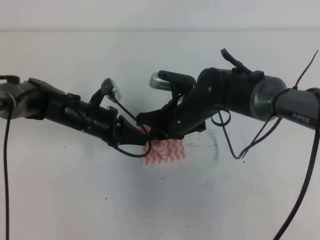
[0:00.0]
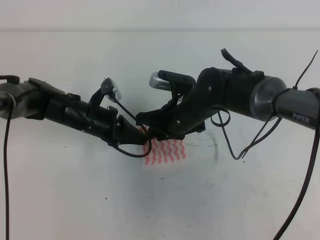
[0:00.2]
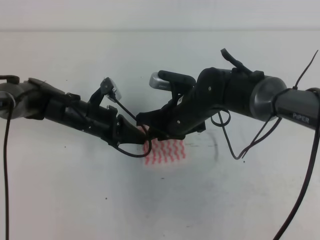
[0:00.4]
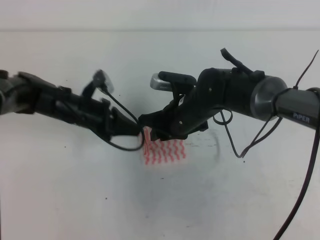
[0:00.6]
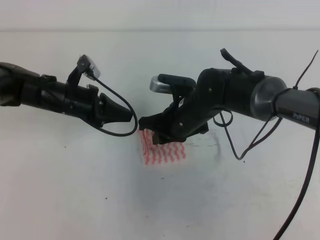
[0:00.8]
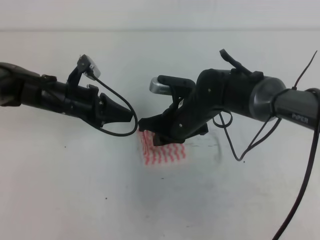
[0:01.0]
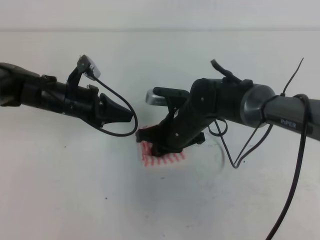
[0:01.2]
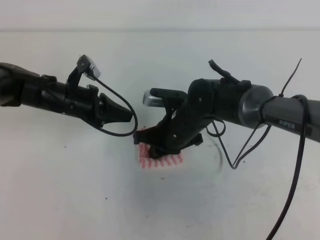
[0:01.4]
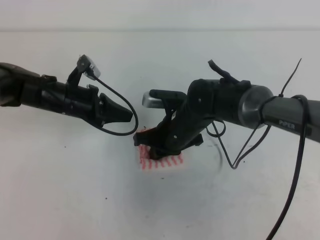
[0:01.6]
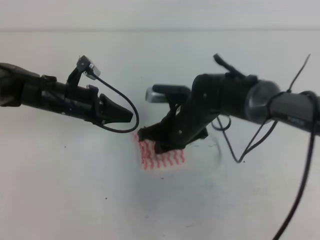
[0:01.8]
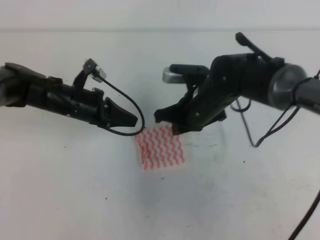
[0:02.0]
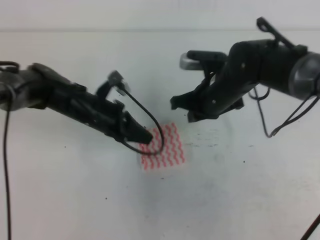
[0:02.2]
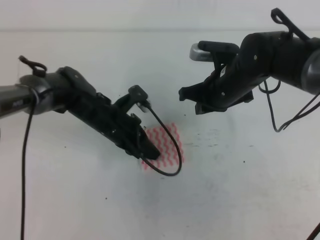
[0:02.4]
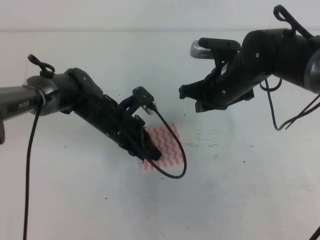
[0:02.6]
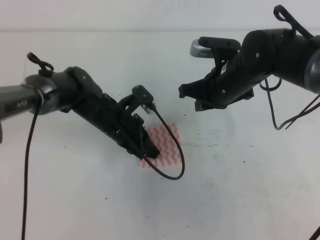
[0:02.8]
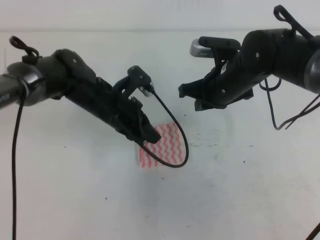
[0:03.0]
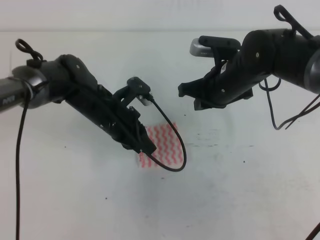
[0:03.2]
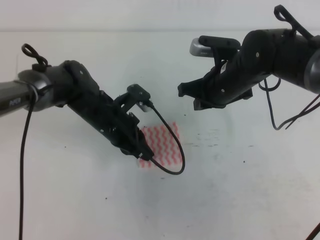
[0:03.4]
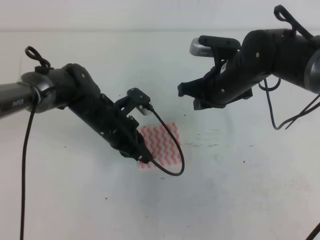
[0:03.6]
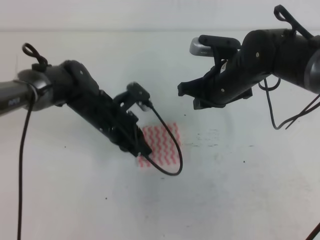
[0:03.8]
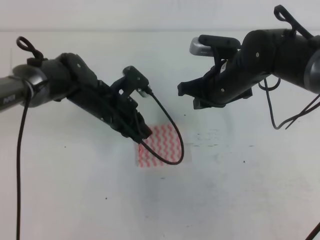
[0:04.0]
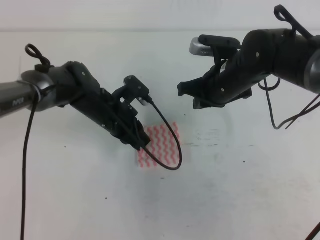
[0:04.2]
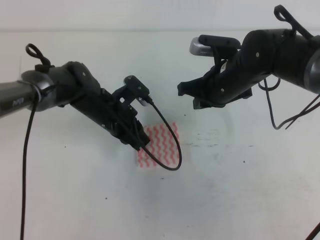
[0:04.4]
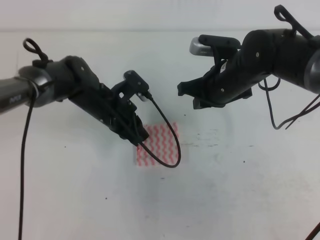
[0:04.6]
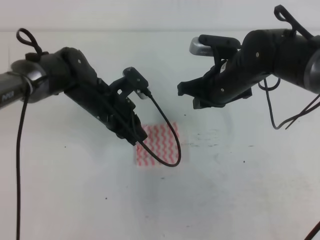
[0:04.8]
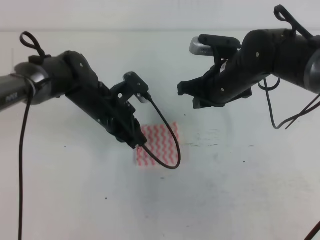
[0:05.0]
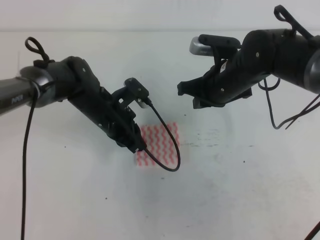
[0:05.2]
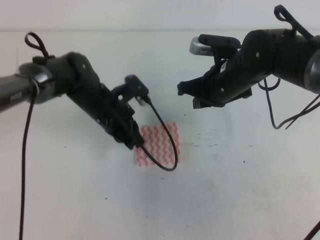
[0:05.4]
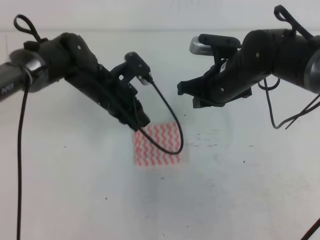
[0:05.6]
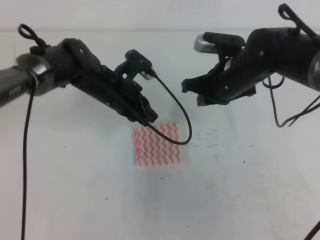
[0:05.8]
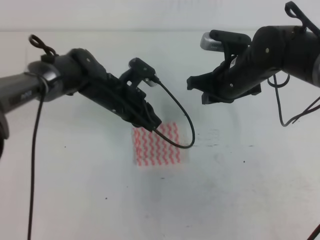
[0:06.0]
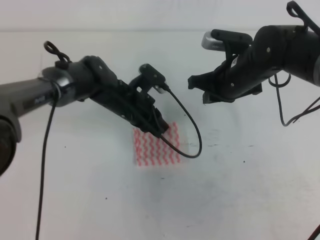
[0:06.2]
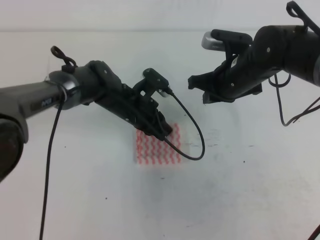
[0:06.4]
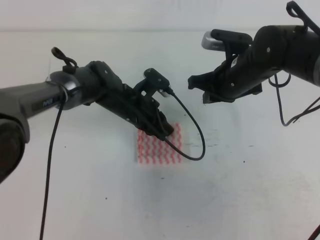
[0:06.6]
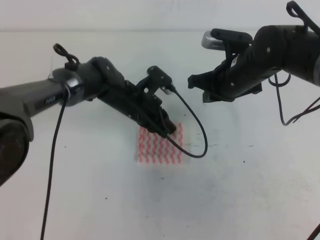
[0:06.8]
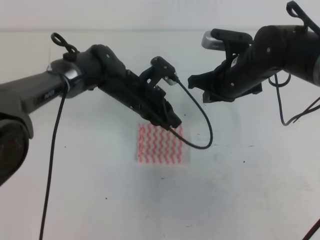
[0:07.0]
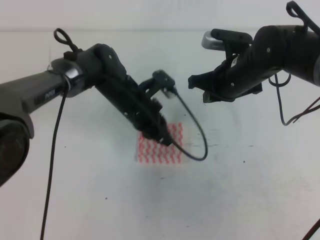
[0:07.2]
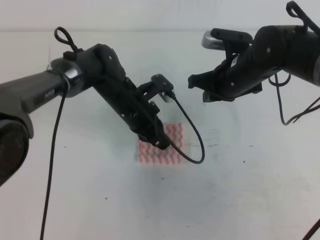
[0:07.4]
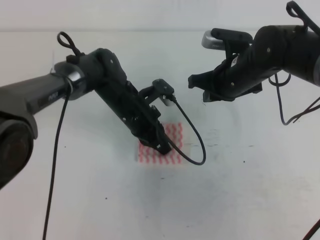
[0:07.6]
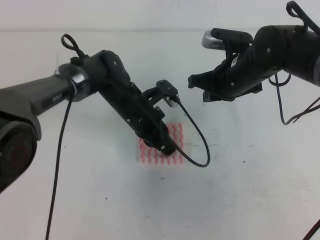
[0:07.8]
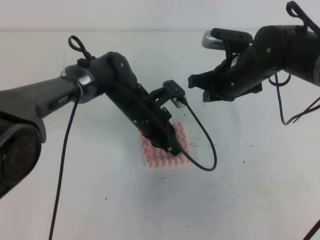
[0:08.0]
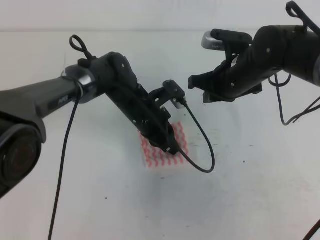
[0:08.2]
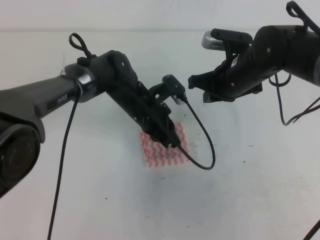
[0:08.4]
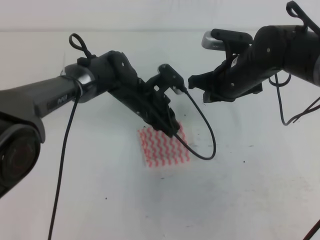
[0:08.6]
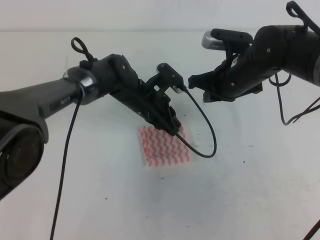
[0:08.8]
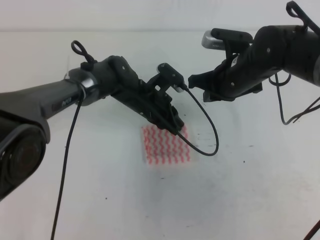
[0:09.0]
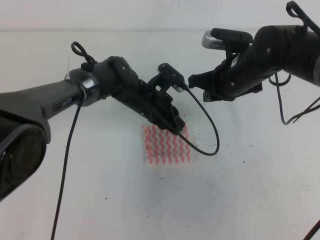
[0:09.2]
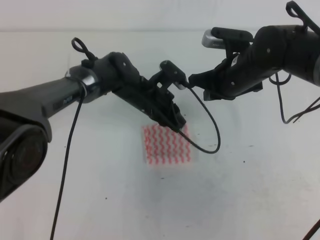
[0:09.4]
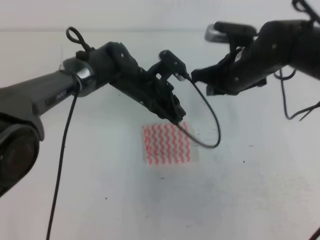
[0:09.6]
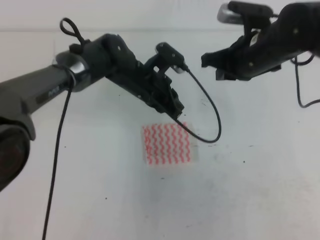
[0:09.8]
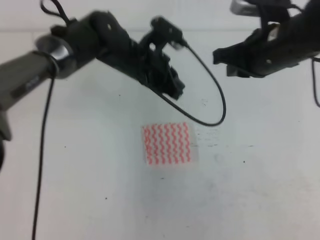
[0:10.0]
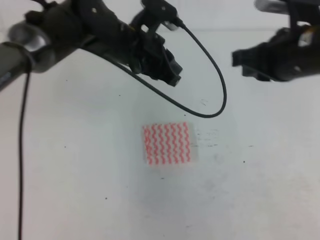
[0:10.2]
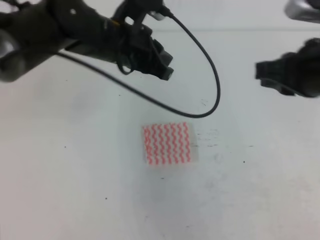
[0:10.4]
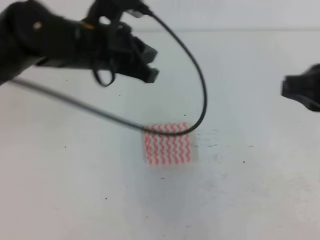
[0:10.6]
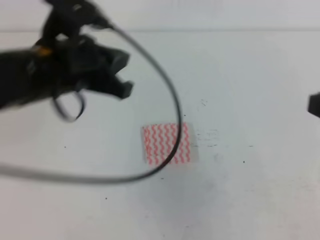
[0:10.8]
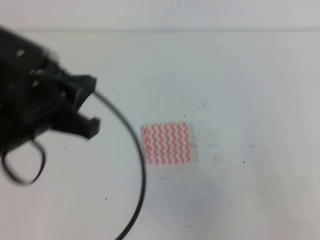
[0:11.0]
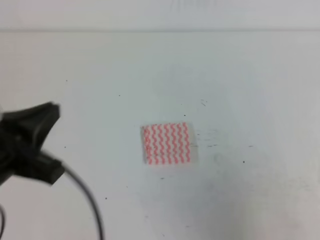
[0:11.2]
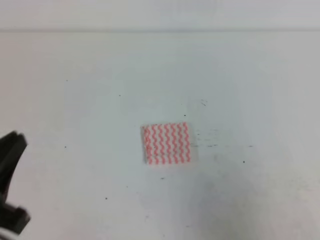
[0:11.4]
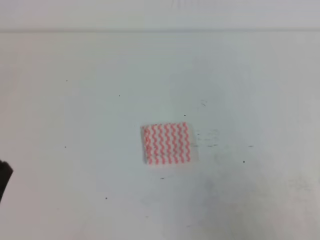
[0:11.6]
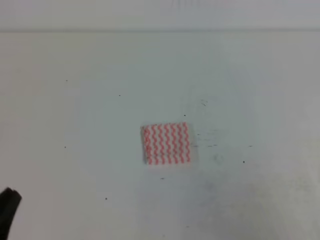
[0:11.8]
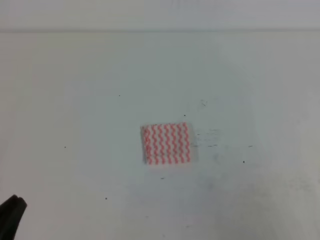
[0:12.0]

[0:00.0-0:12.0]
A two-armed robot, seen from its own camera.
0:00.0 to 0:01.6: The left gripper shifts by approximately 5 cm.
0:01.6 to 0:03.0: The right gripper goes roughly 10 cm to the right and upward. Meanwhile the left gripper heads to the right, covering approximately 10 cm.
0:03.0 to 0:06.0: The grippers move only a little.
0:07.6 to 0:09.0: The grippers move only a little.
0:09.0 to 0:10.4: The right gripper is displaced backward, upward and to the right by about 20 cm. Meanwhile the left gripper is displaced upward by about 20 cm.
0:10.4 to 0:12.0: The left gripper heads backward, to the left and downward, covering approximately 35 cm. Meanwhile the right gripper goes approximately 25 cm backward, downward and to the right.

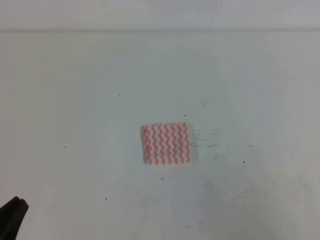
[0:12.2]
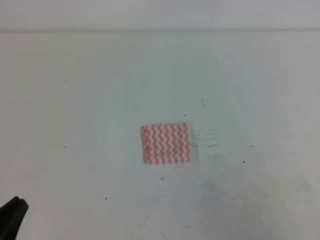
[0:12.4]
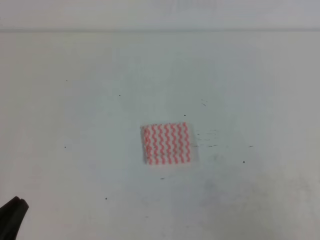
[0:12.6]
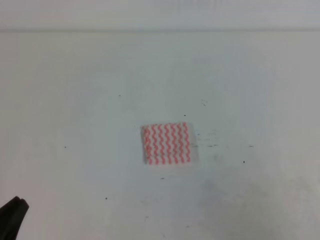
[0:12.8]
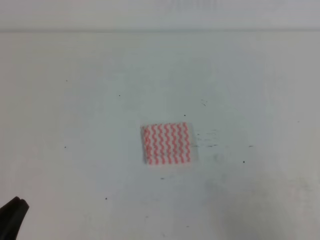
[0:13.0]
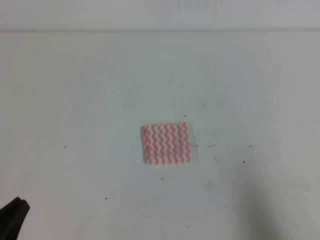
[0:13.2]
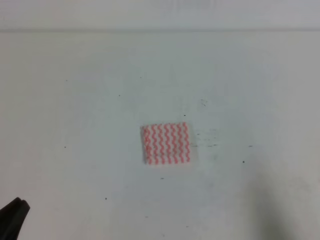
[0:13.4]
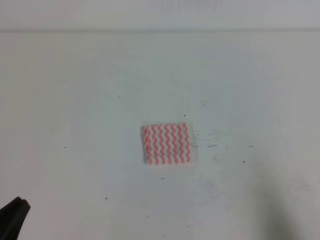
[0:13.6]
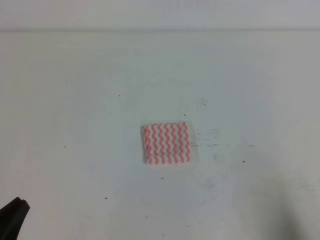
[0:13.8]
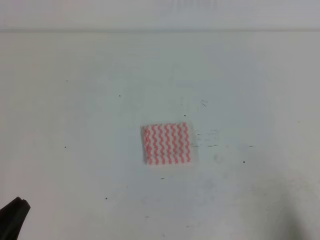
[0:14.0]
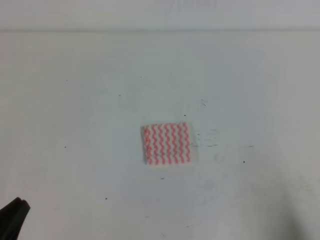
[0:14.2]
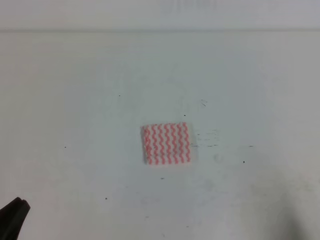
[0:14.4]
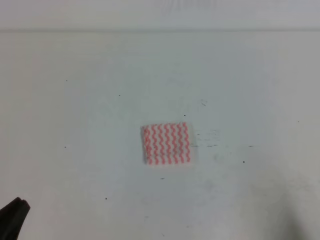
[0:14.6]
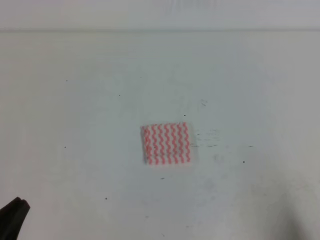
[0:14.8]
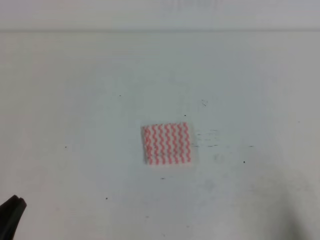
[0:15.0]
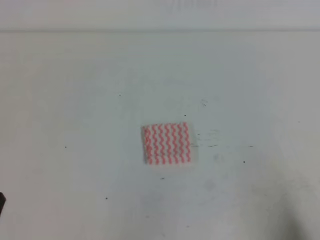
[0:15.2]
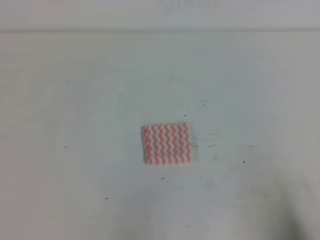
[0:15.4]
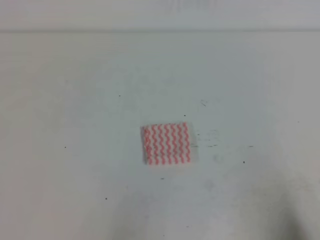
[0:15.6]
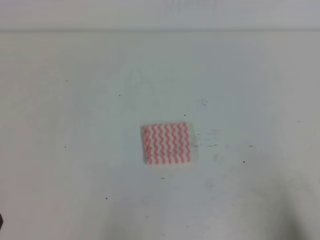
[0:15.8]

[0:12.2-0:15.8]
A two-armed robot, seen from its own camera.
0:12.2 to 0:14.0: The right gripper moves downward, about 5 cm.
0:14.0 to 0:15.8: The grippers move only a little.
